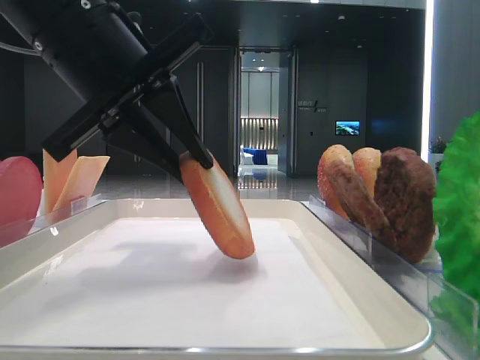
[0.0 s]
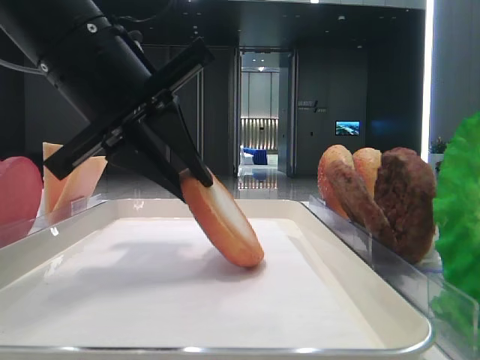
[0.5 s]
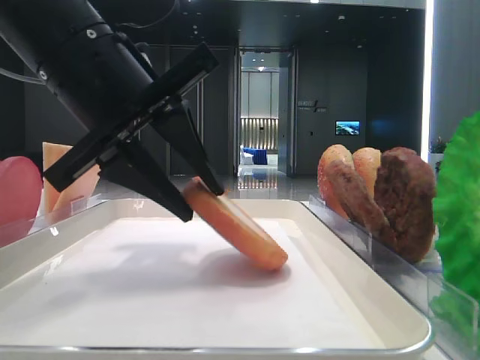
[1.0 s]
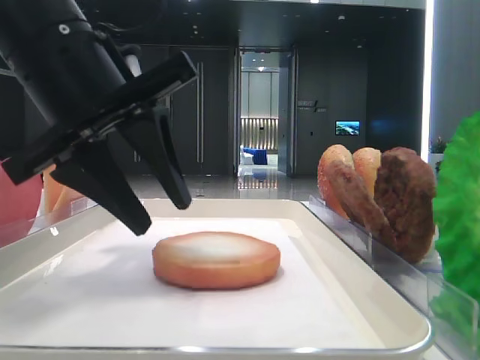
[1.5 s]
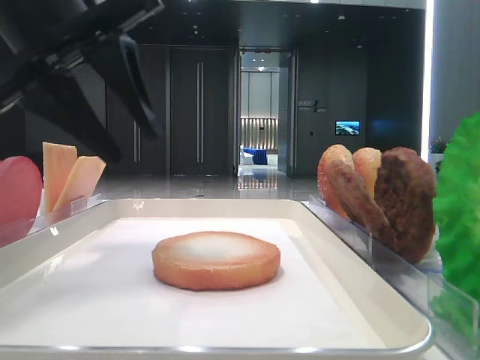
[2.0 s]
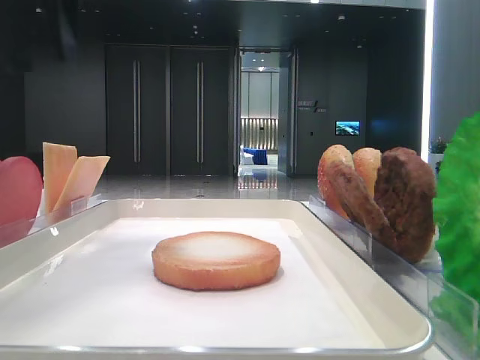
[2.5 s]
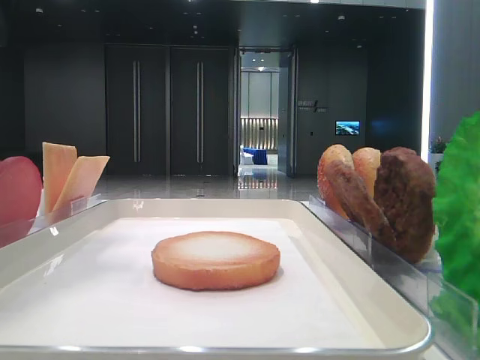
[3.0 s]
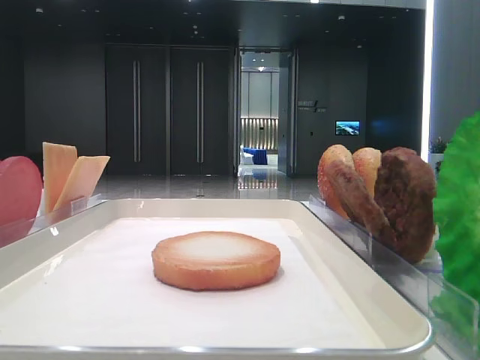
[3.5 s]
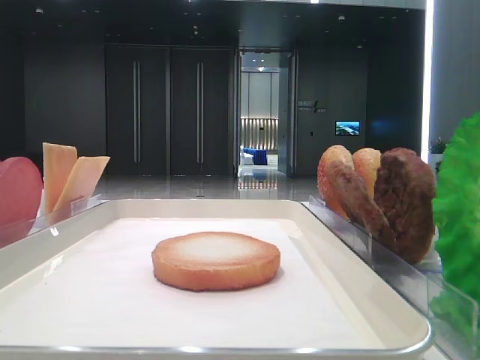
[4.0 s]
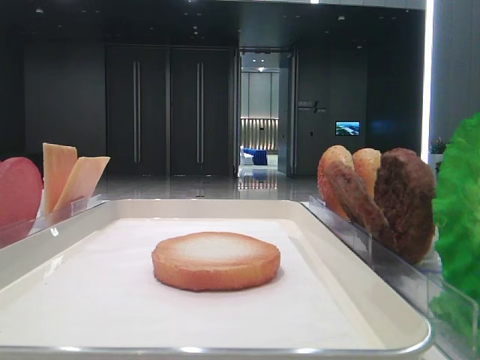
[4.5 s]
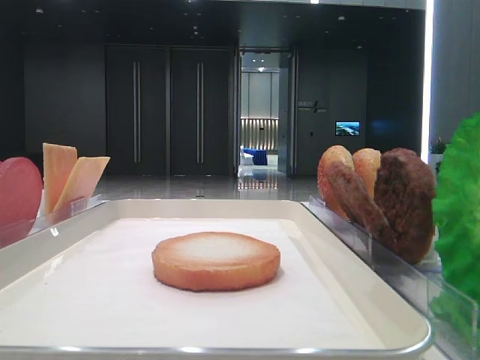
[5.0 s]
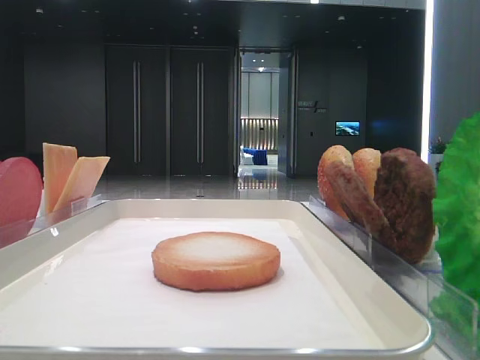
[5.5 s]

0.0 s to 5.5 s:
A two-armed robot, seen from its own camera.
0.0 to 2.0 s: The left gripper opens.
2.0 to 3.5 s: The left gripper shifts approximately 25 cm to the left and upward.

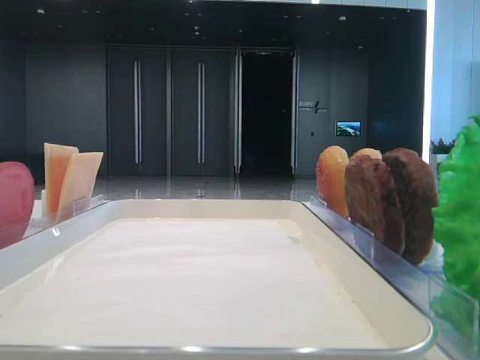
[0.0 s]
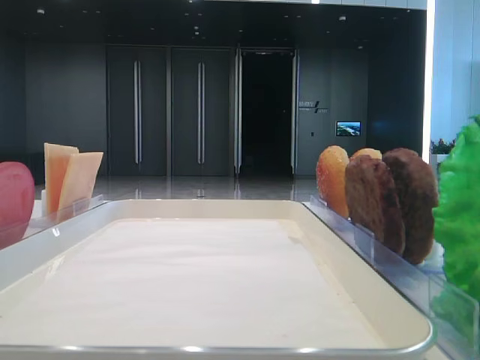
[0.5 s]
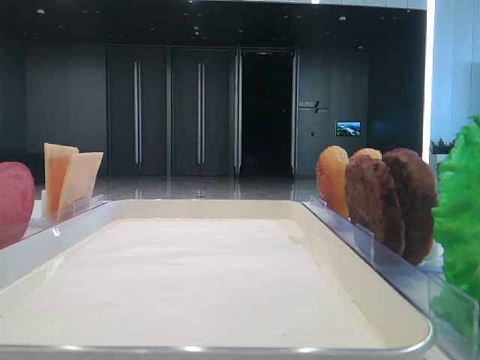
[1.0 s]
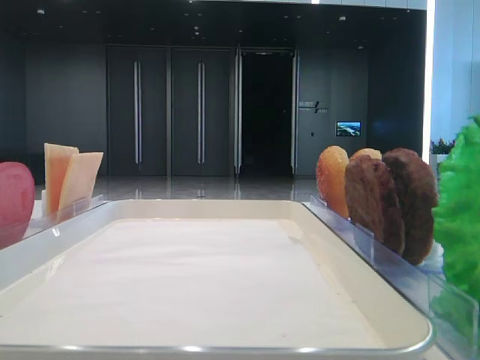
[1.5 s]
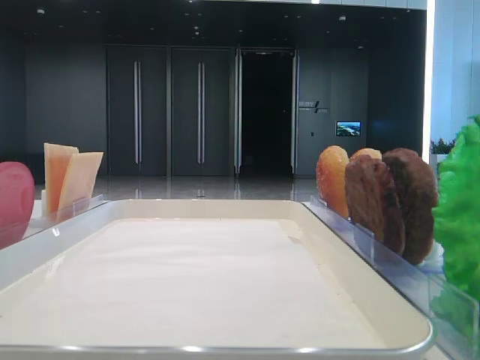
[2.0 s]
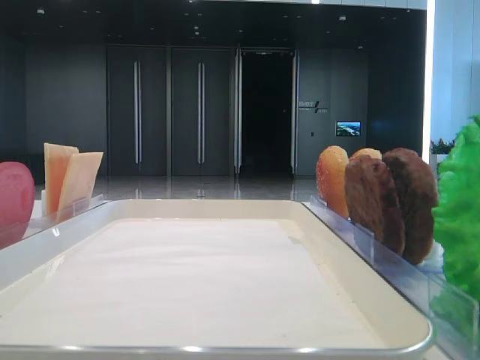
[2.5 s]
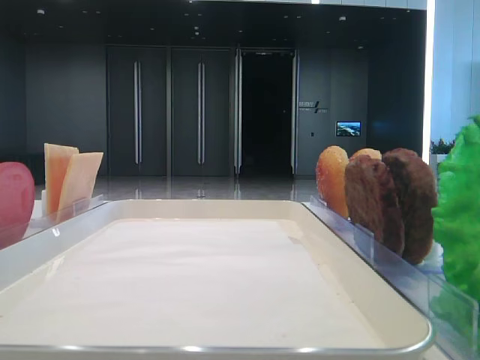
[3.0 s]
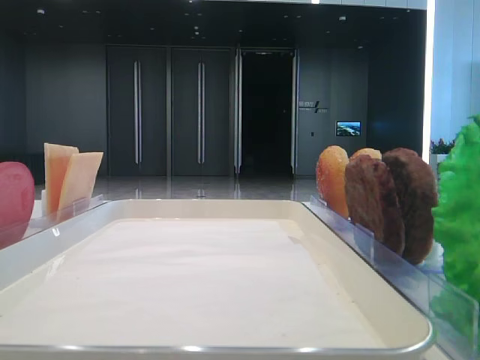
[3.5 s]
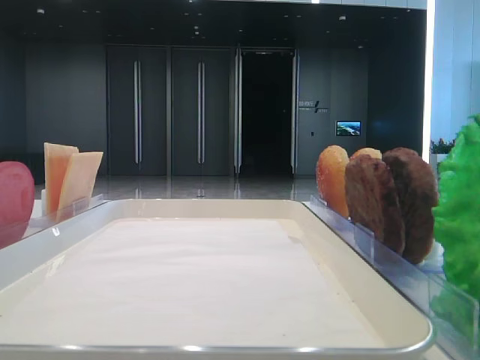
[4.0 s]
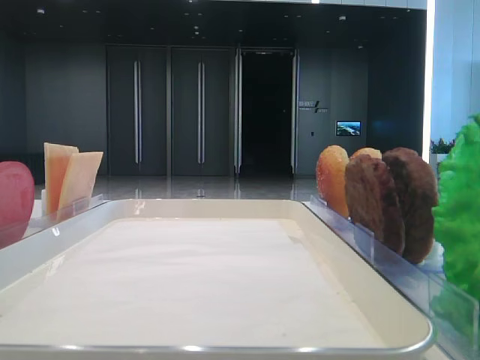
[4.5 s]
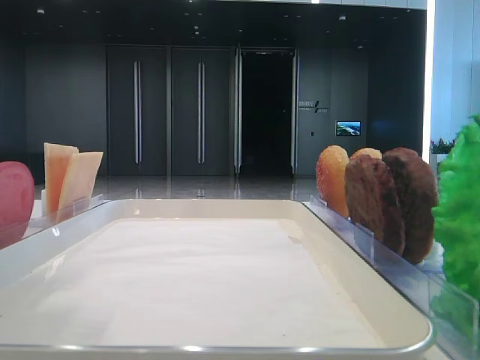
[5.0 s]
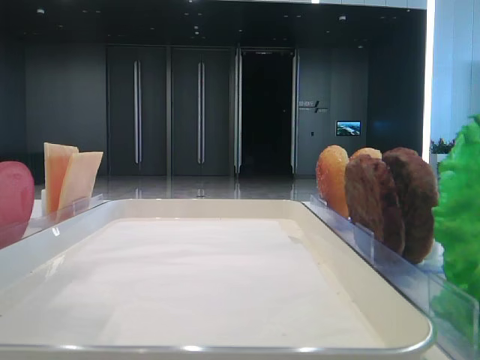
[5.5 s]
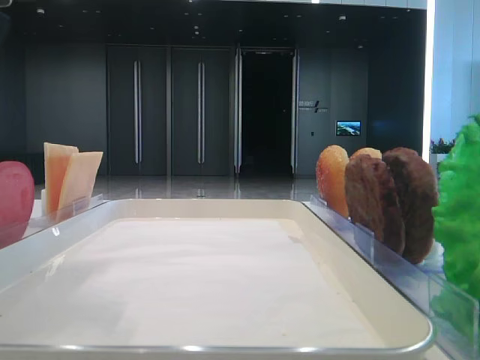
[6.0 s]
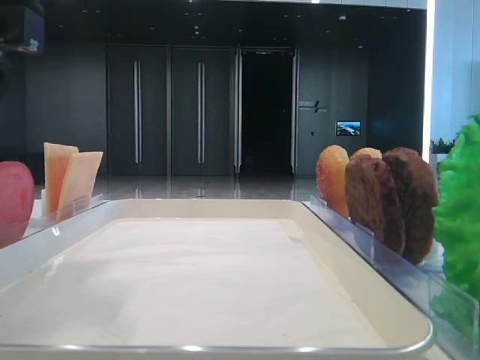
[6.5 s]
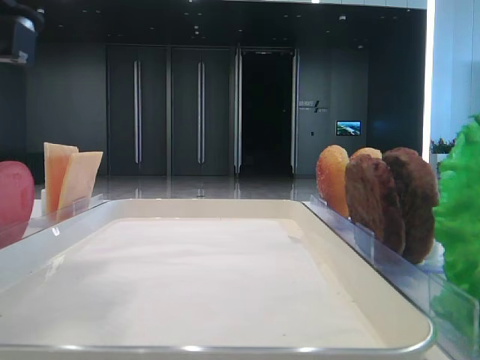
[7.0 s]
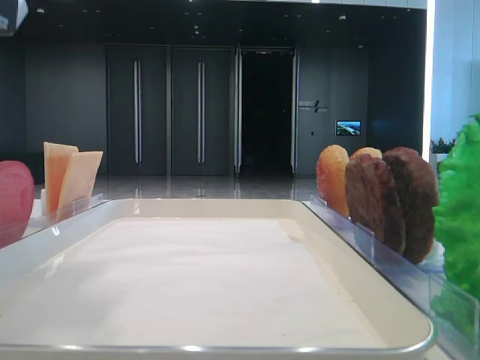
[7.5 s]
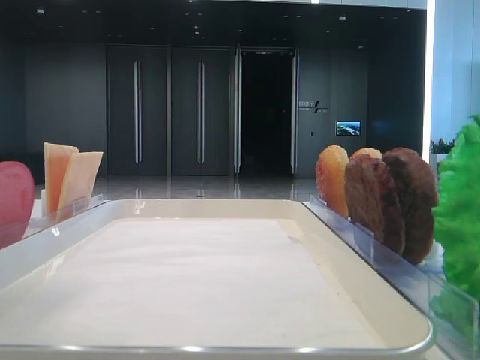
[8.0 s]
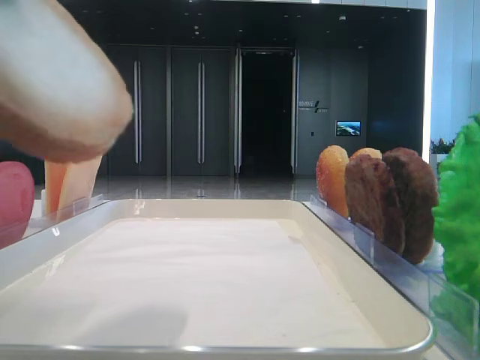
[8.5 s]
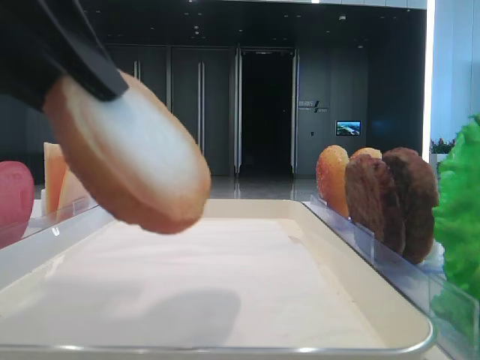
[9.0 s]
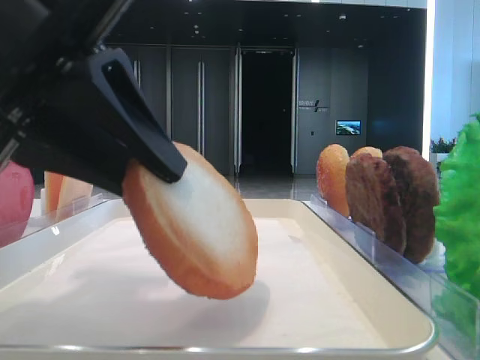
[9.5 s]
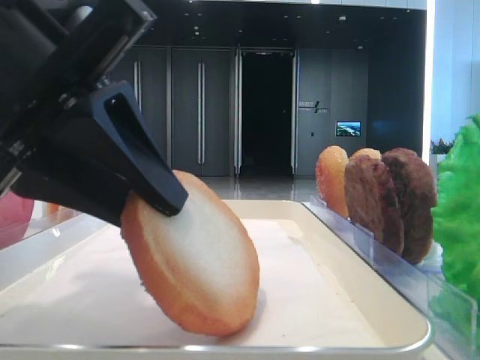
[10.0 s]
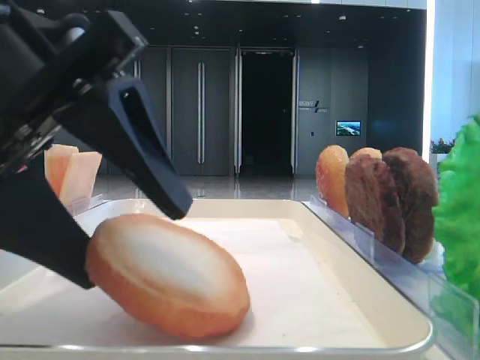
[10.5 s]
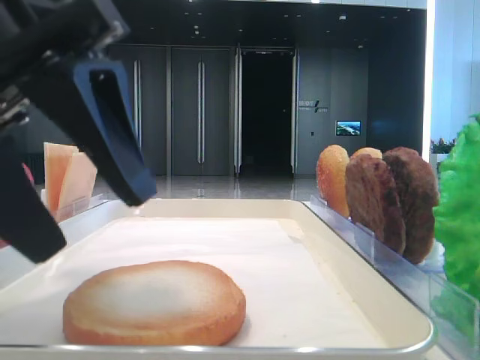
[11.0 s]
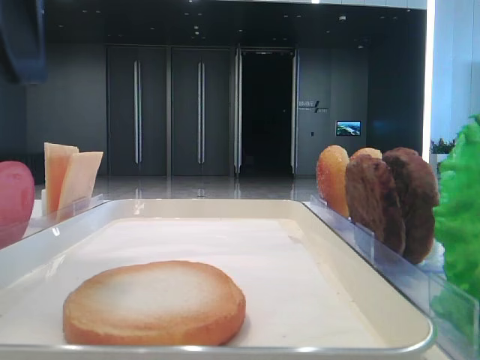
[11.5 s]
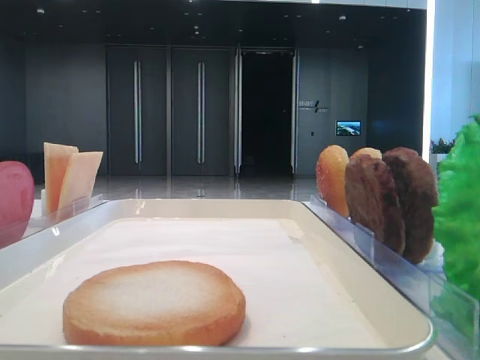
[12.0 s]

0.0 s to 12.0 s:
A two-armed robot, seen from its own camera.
Step, 0.0 to 7.0 s: Pick up the bottom bread with the left hand.
Step, 7.5 to 10.5 s: Place the bread on the tray with the left hand.
4.0 to 6.0 s: The left gripper is displaced to the right and downward by roughly 15 cm.
6.0 to 8.0 s: The left gripper travels upward and backward by roughly 10 cm, and closes its fingers.
8.0 to 10.0 s: The left gripper goes roughly 20 cm downward and to the right.
10.0 to 12.0 s: The left gripper moves to the left and upward, some 20 cm, and opens up.

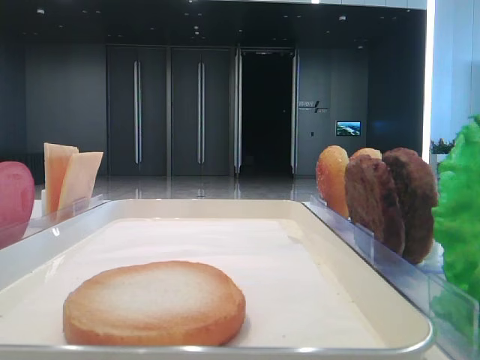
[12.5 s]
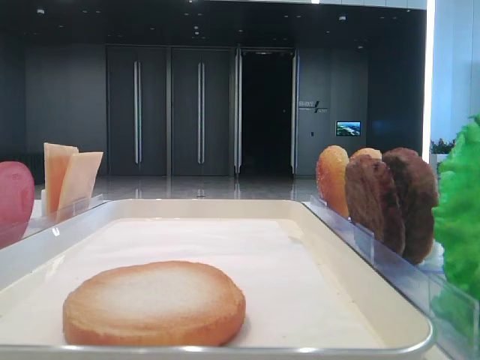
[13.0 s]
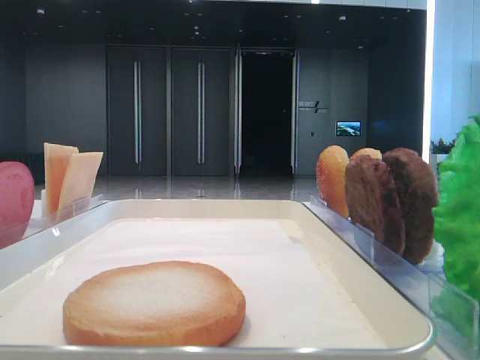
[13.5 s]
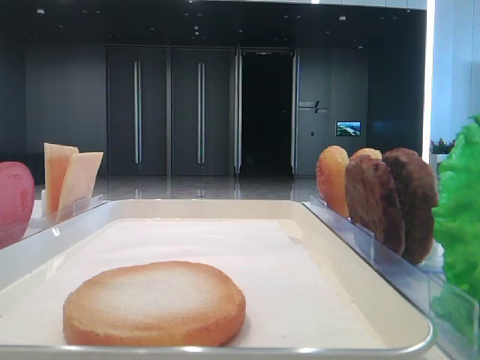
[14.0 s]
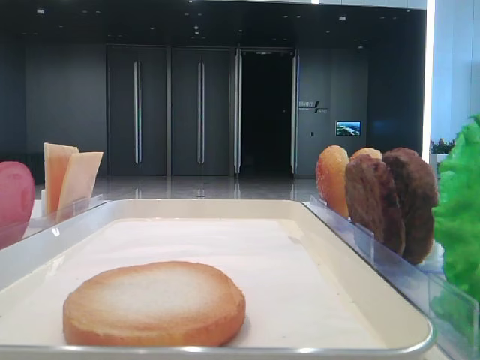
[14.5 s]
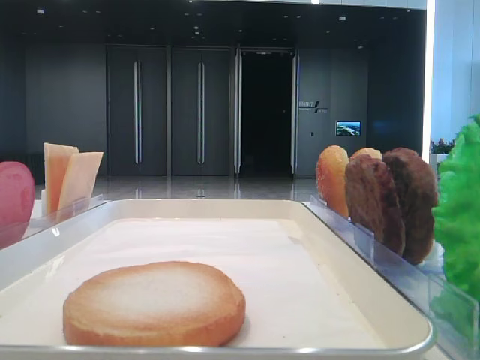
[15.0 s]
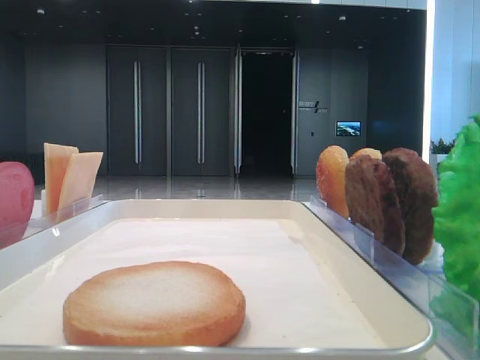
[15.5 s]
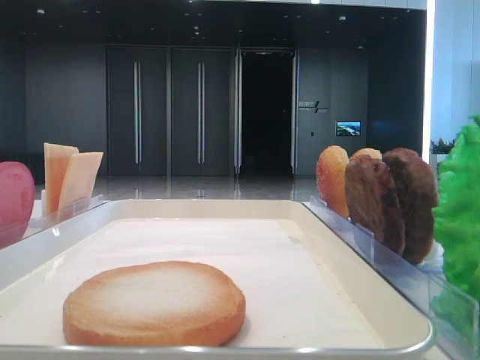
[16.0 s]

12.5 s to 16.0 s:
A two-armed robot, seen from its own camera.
14.5 to 16.0 s: Neither gripper changes place.
